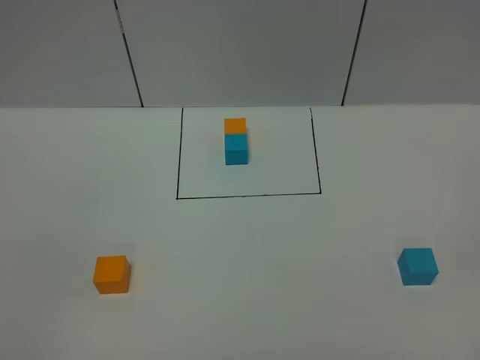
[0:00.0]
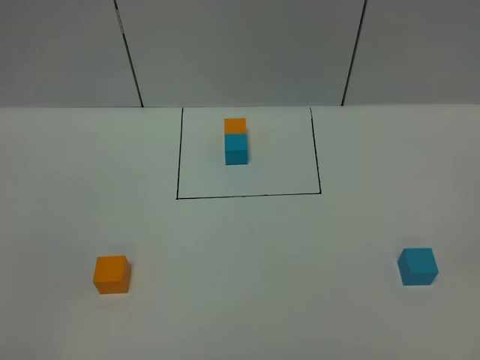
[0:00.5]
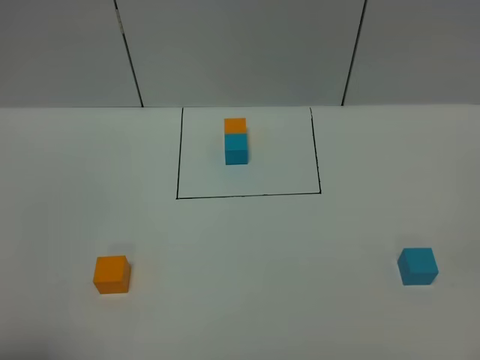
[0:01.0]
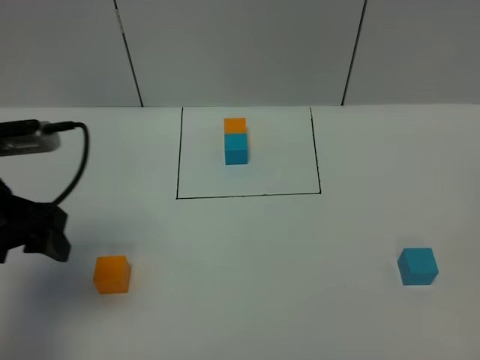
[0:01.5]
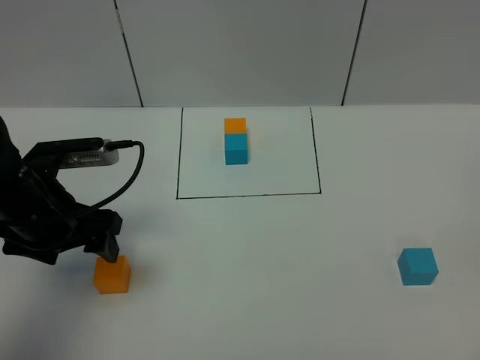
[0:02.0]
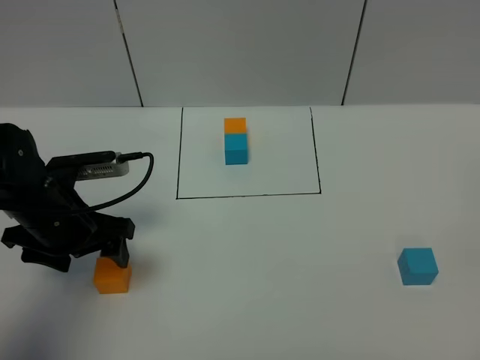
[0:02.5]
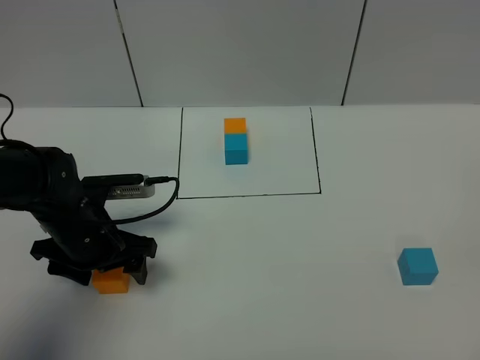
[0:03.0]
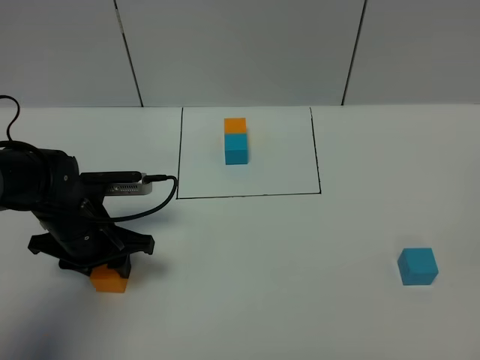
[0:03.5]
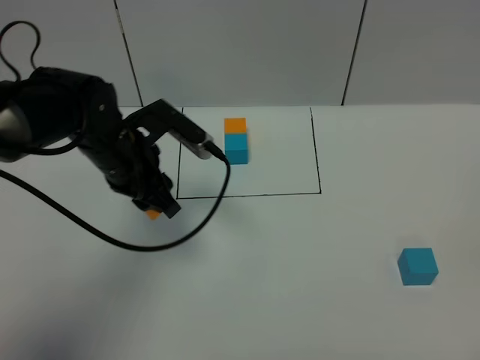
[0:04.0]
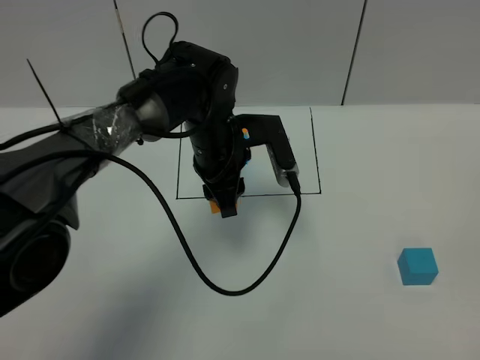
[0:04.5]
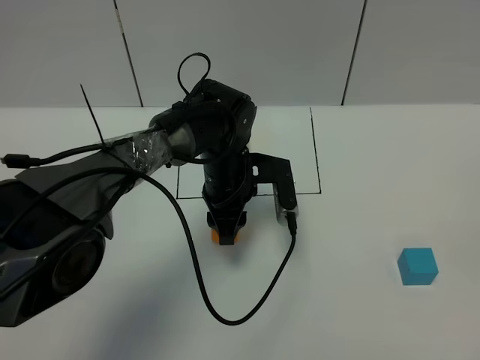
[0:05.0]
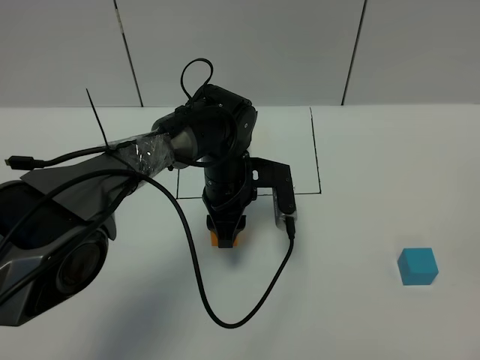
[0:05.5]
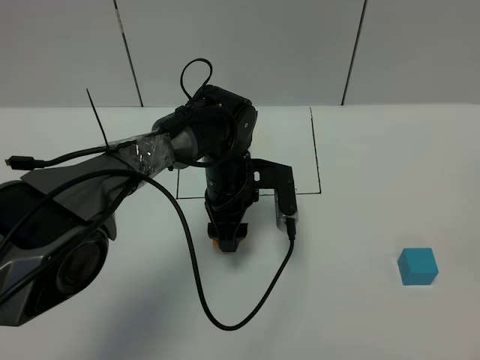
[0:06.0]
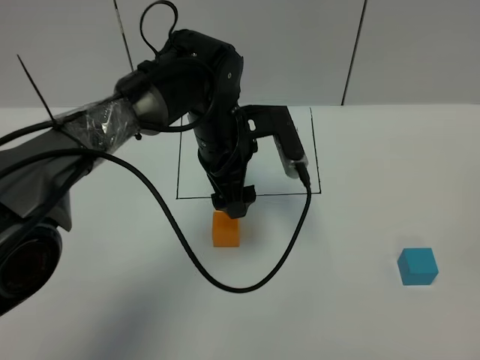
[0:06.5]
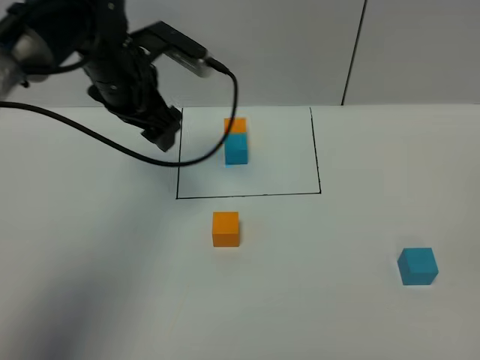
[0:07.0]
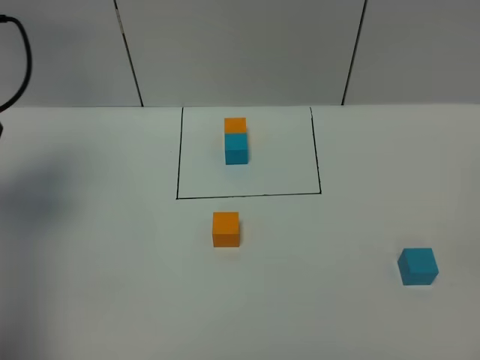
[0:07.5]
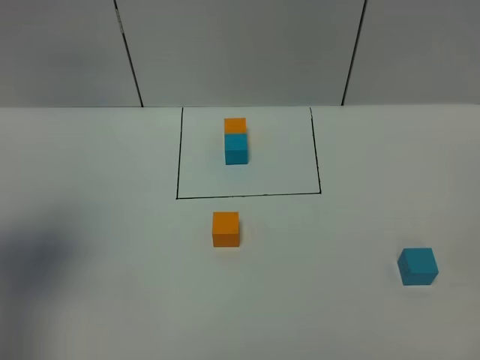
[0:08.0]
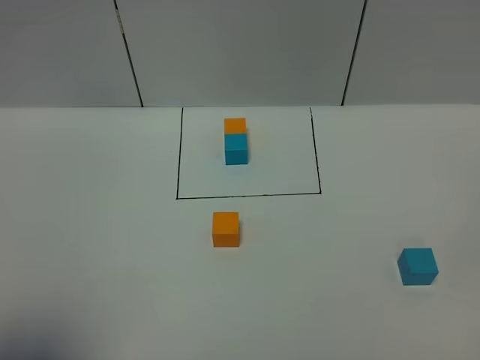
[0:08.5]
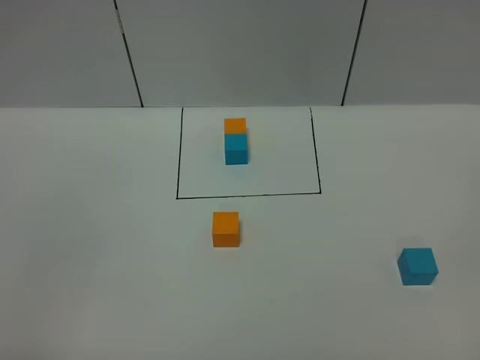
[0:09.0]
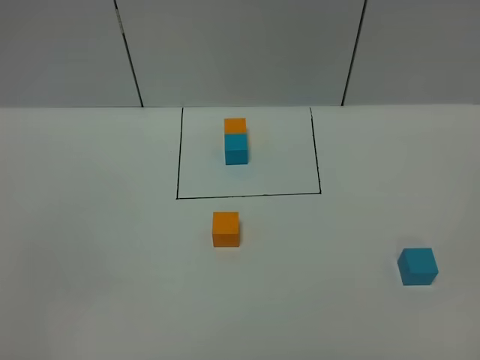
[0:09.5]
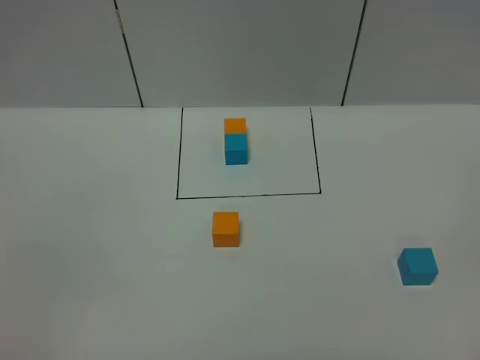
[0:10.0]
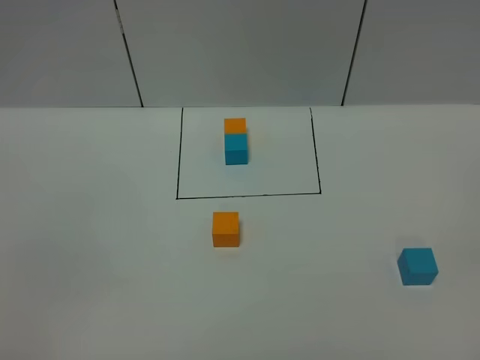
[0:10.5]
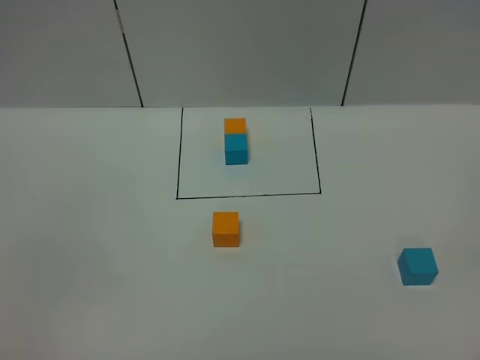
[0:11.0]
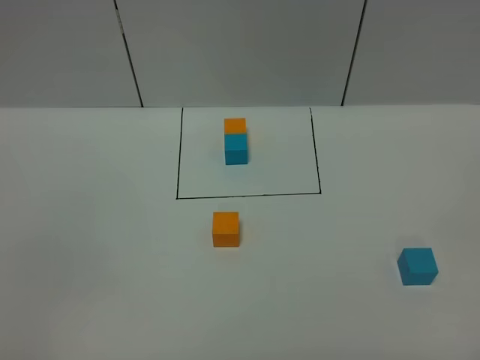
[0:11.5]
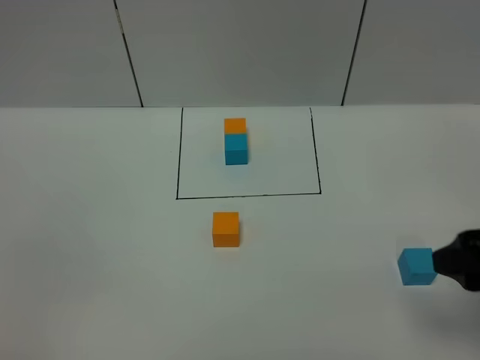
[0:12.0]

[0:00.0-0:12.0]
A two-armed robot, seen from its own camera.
Task of the whole recording: According to the building block template in front, assemble the scattered blocks together.
Step, 0:01.0 to 0:06.0: Put the orange cube in the center of the table.
0:00.0 to 0:02.0: The left gripper heads forward, covering roughly 30 cm.
0:02.0 to 0:04.0: The left gripper goes about 10 cm to the right and forward, and closes up.
0:04.0 to 0:06.0: The left gripper goes roughly 15 cm to the right and downward, and opens.
0:06.0 to 0:08.0: The left gripper is displaced to the left, upward and backward by about 40 cm.
0:08.0 to 0:10.0: The left gripper shifts approximately 25 cm backward.
0:10.0 to 0:12.0: The right gripper is displaced forward by some 20 cm.

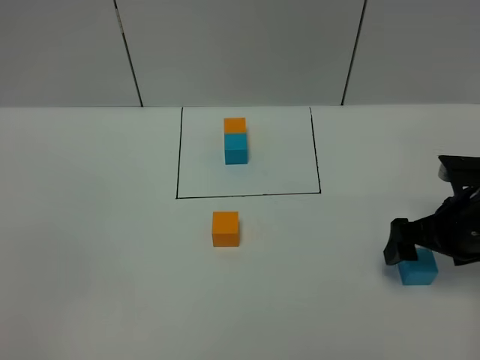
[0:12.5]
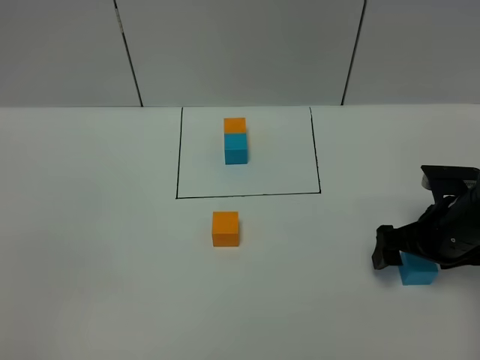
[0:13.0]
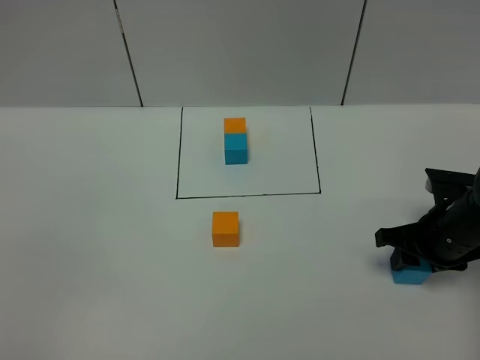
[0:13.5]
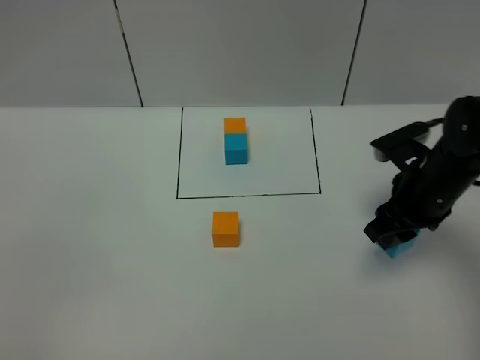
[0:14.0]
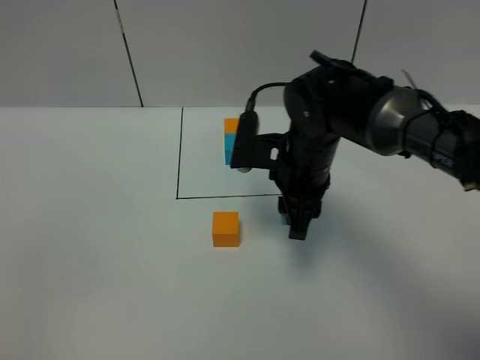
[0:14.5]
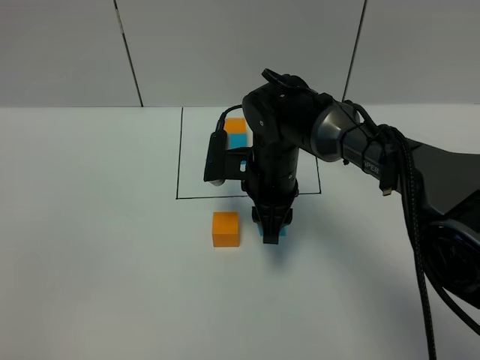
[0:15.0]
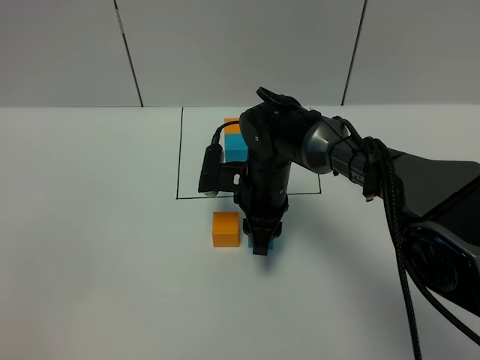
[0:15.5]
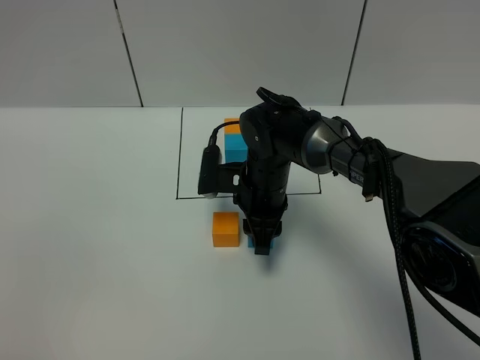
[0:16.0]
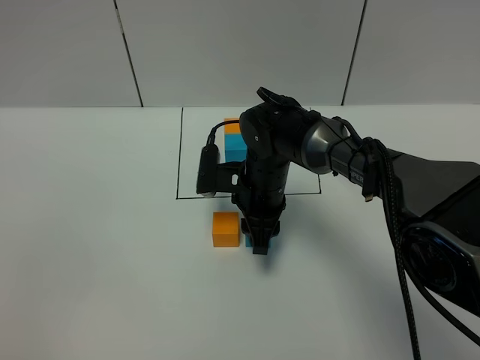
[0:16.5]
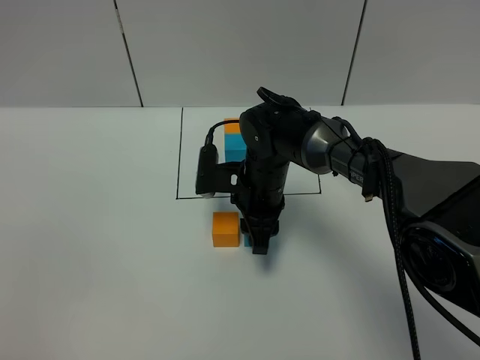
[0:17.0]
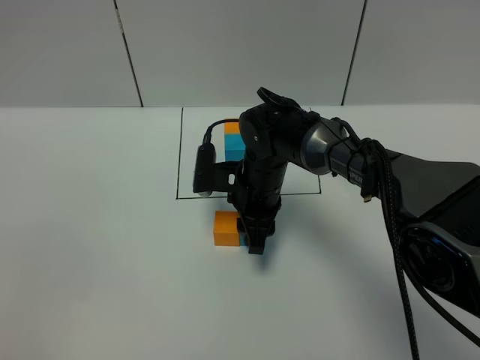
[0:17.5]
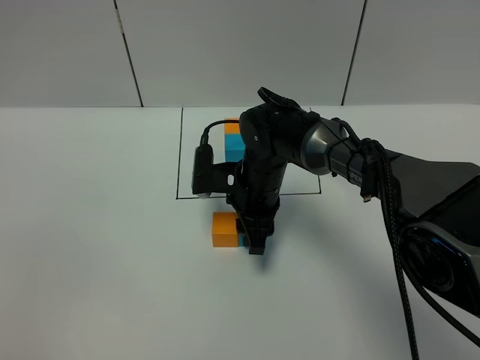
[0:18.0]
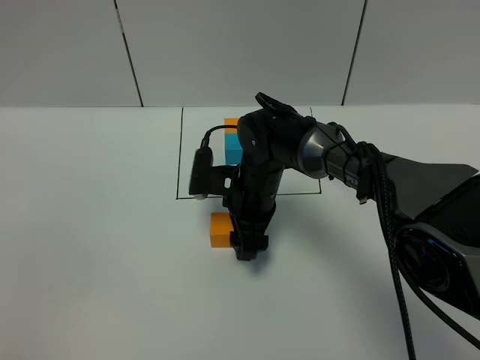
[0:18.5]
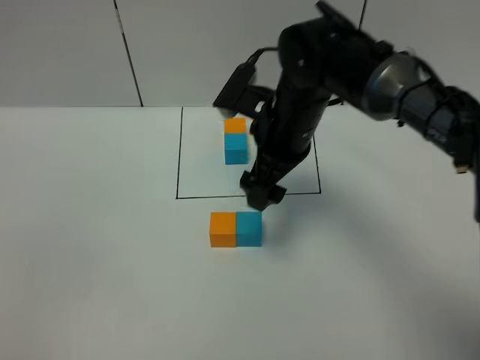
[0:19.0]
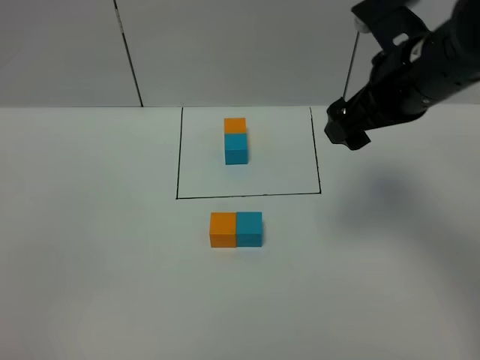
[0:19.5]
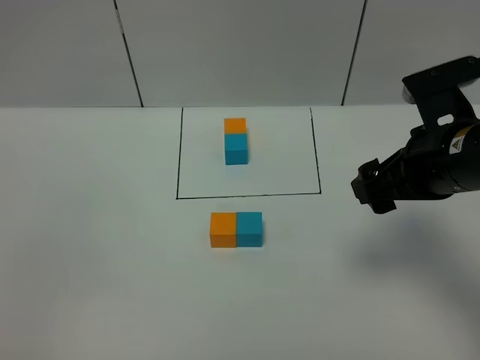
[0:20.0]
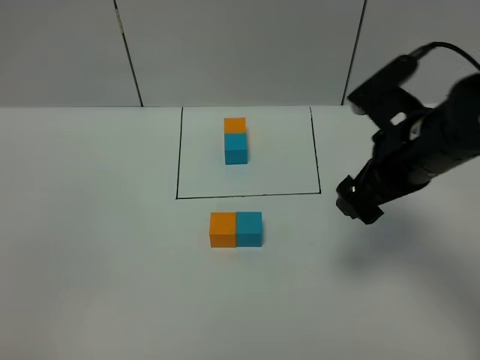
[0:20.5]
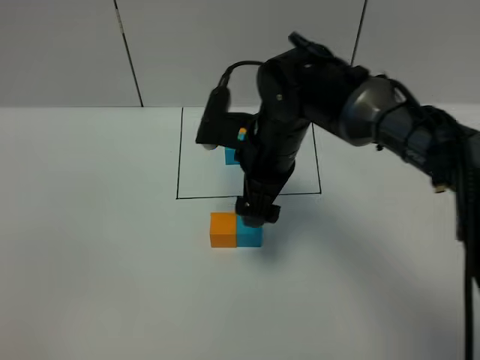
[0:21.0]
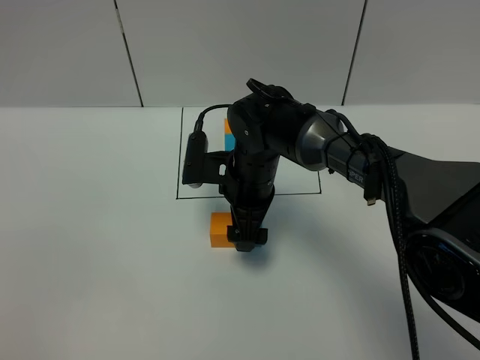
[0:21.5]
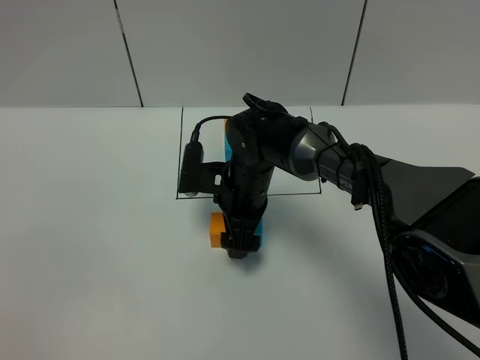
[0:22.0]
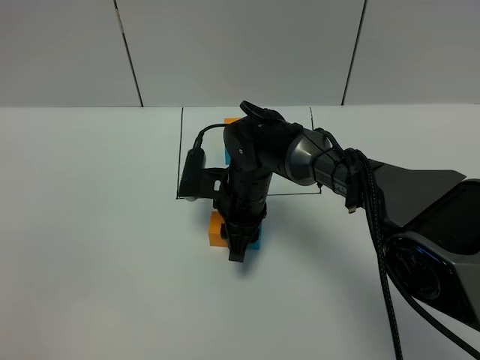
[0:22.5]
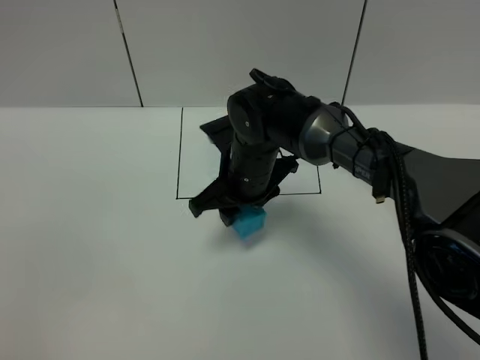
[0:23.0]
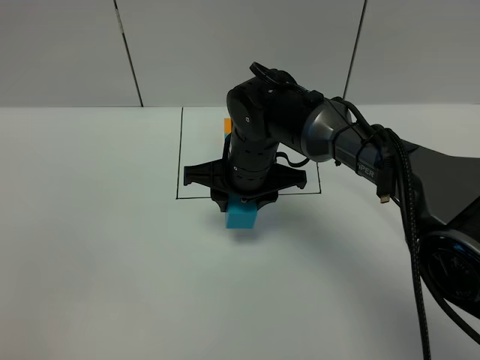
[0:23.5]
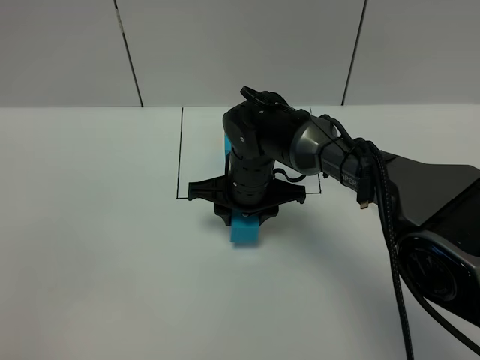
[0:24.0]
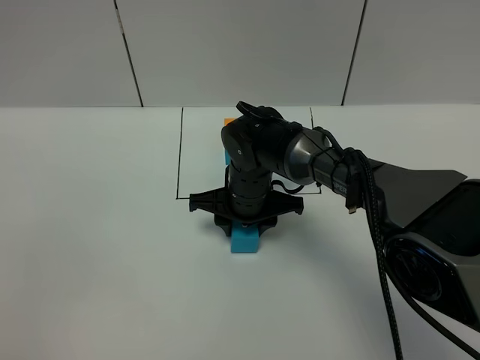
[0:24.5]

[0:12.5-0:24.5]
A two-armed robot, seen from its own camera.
Task of the whole recording: According to the building block template in front, assemble the scattered blocks together.
Step, 0:12.5 to 0:18.5: Put the blue cube on the right of the orange cube.
0:12.5 to 0:14.5: The right gripper travels to the left by about 20 cm, and closes up.
0:14.5 to 0:16.5: The right gripper moves downward, roughly 5 cm.
0:16.5 to 0:18.5: The right gripper opens its fingers.
0:18.5 to 0:20.5: The right gripper moves to the right, upward and backward, about 25 cm.
0:20.5 to 0:22.5: The right gripper goes some 25 cm to the left, downward and forward, and closes up.

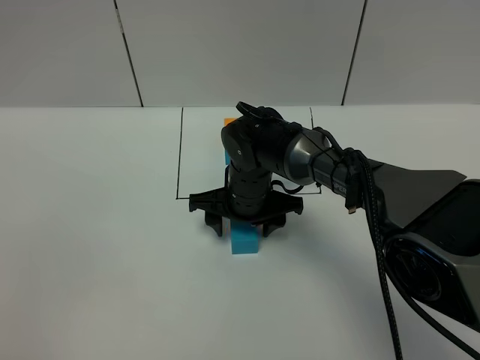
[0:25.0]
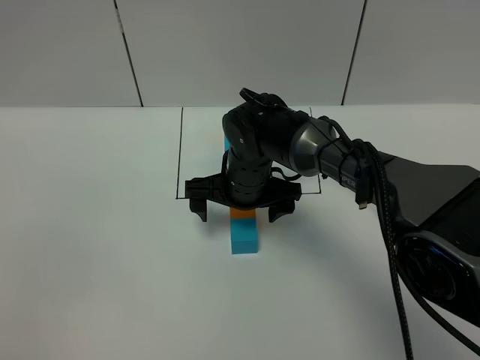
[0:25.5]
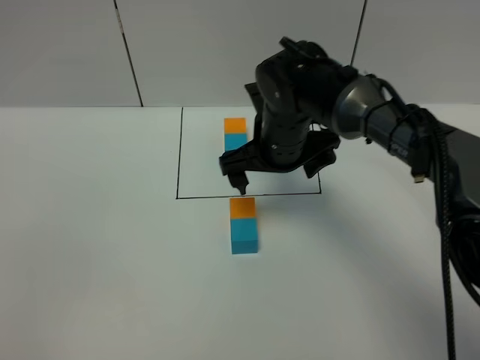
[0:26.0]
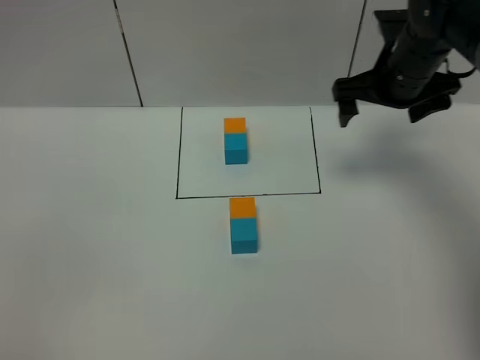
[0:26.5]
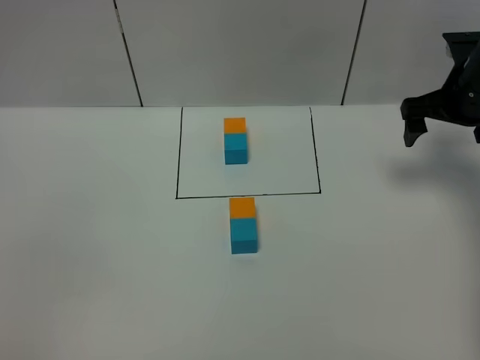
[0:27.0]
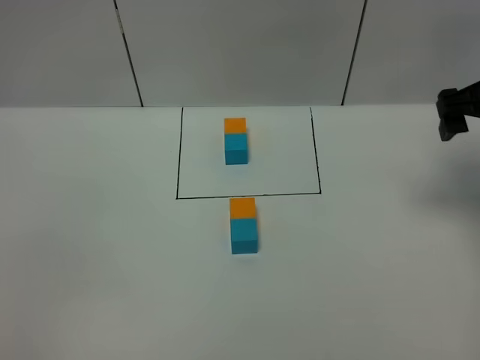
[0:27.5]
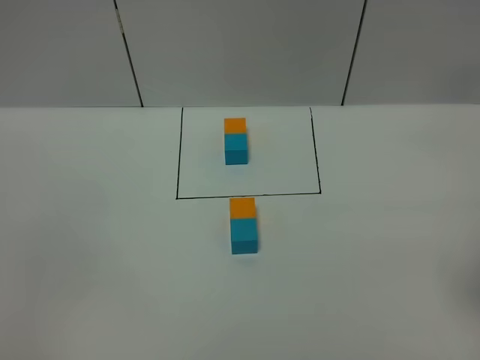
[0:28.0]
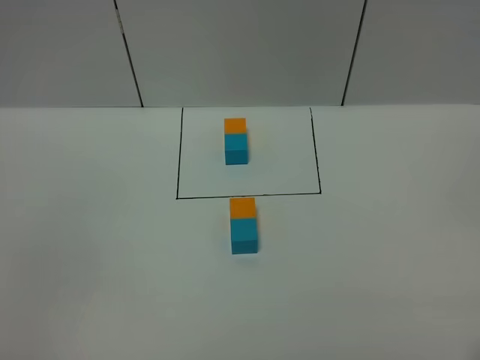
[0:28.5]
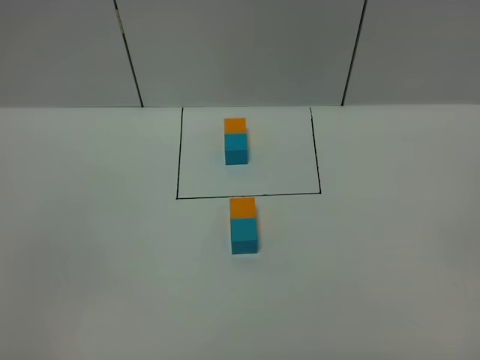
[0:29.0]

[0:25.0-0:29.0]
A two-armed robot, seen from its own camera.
Task of the whole recording: According to the building block template in front, assemble the scattered blocks together.
0:25.0 to 0:27.0: The right gripper goes some 30 cm to the right and upward, and opens its fingers.
0:27.0 to 0:29.0: The right gripper goes approximately 40 cm backward.
